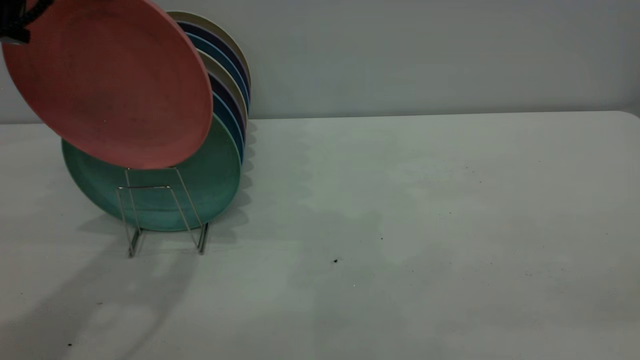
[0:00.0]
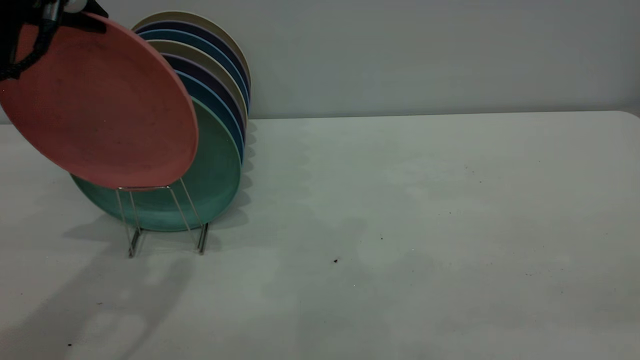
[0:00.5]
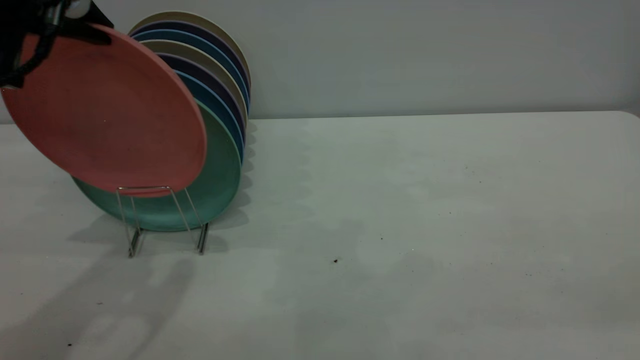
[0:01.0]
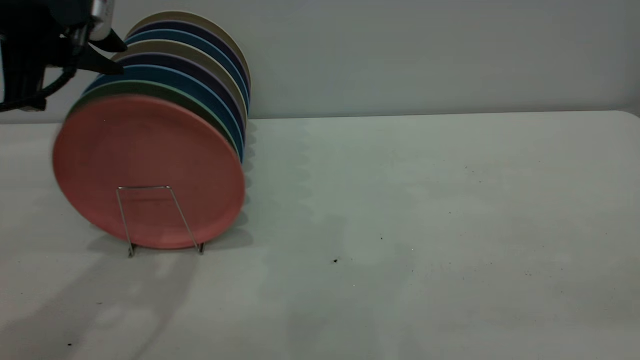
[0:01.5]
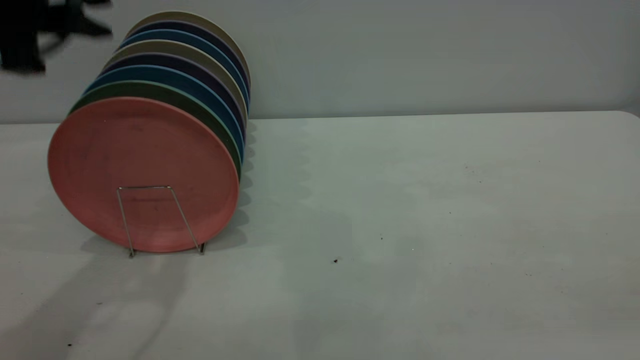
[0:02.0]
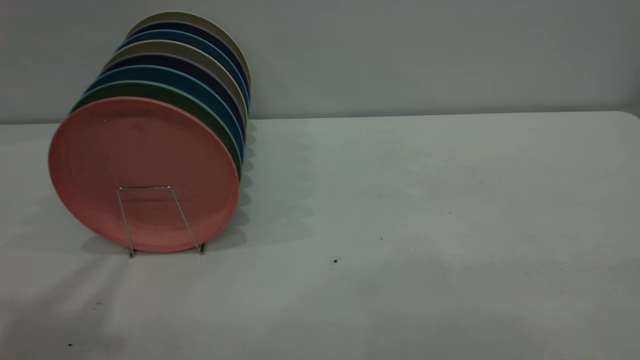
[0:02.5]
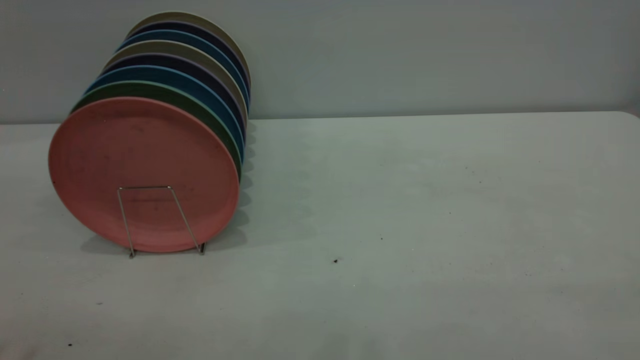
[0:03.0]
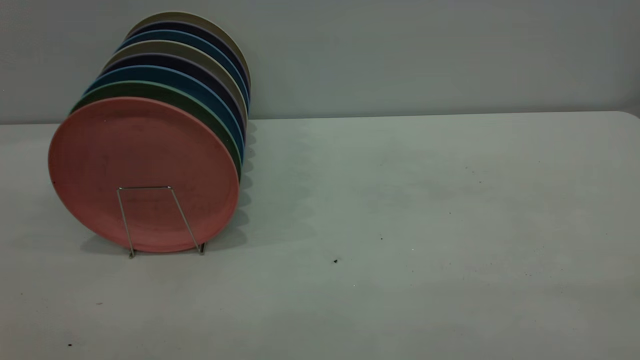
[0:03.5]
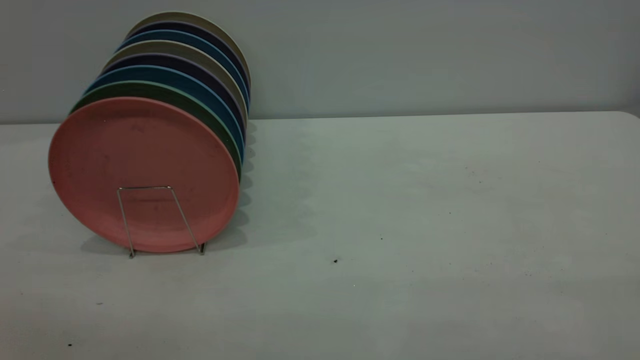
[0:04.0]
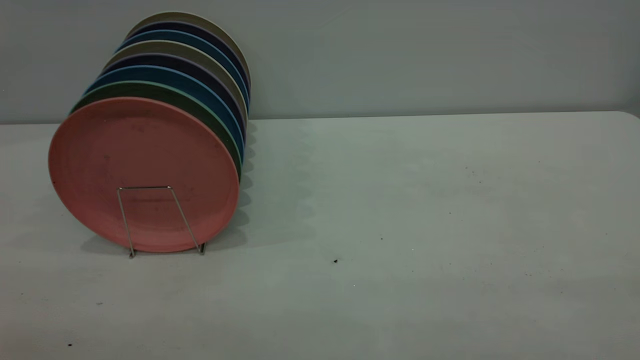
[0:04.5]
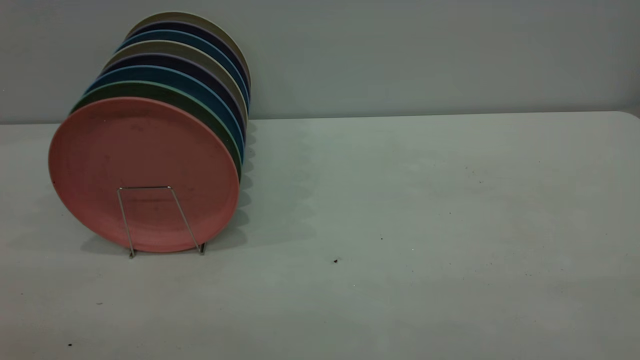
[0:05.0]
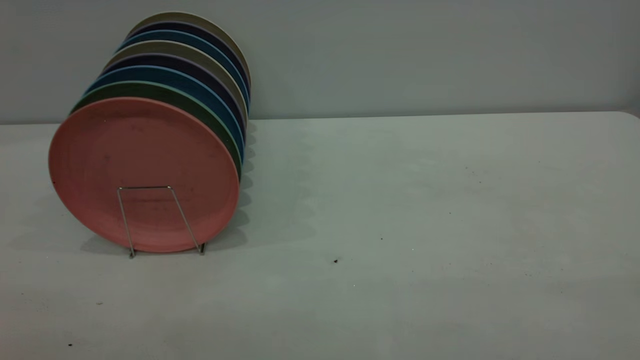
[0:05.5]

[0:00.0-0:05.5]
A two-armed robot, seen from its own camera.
Task of the whole recording: the right gripper grasp the pink plate, the right gripper pass the pink plate to the left gripper, and the left gripper place the pink plate on the plate rack.
Step, 0:00.0 to 0:02.0: Place the plate on the shelf.
0:00.0 to 0:02.0: The left gripper opens.
0:02.0 to 0:03.5: The left gripper travels backward by about 20 cm.

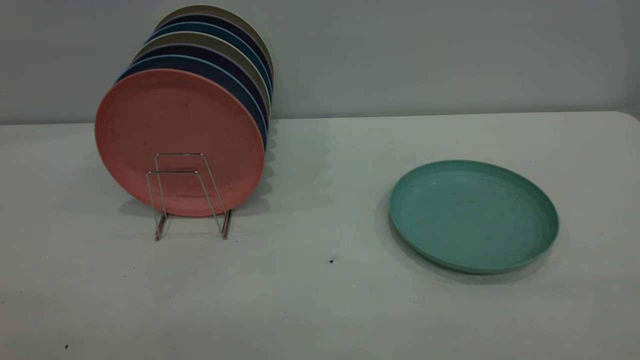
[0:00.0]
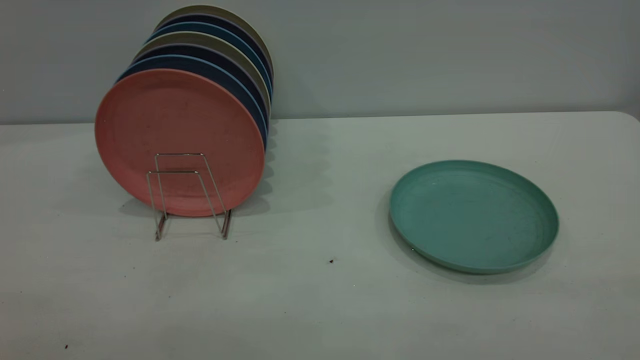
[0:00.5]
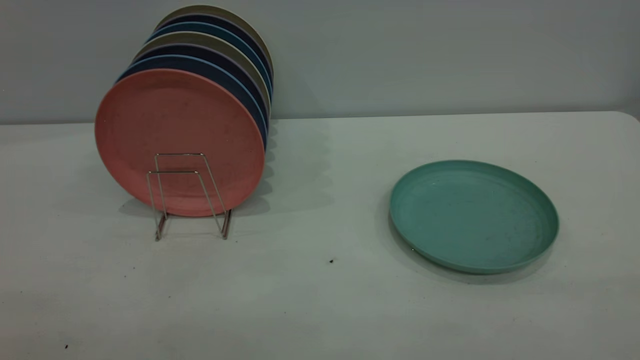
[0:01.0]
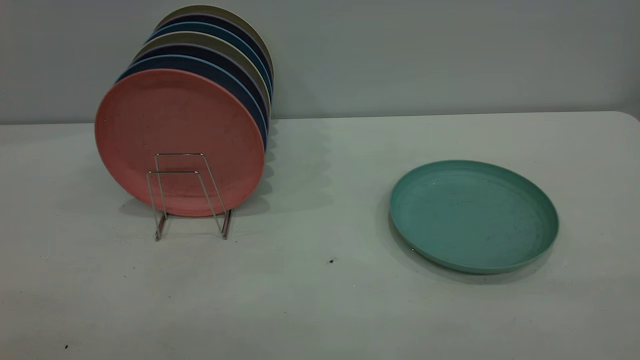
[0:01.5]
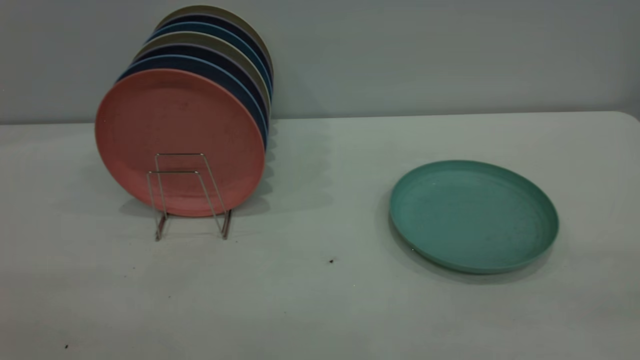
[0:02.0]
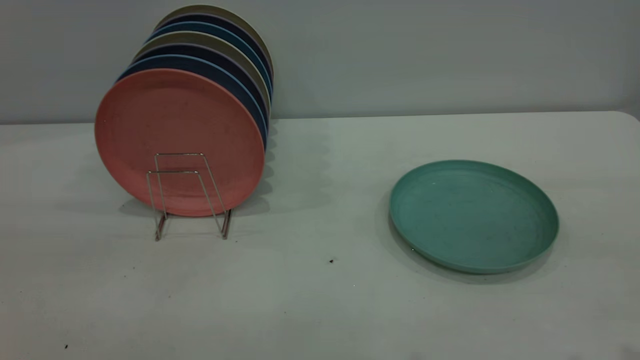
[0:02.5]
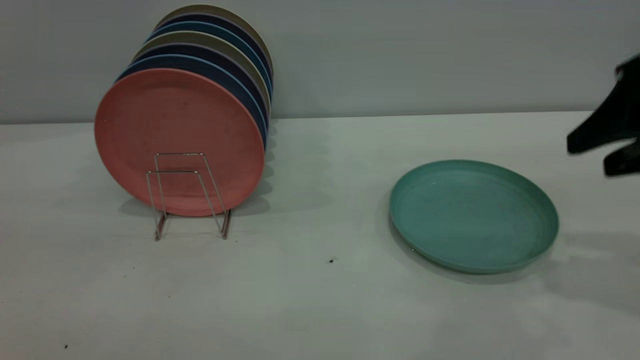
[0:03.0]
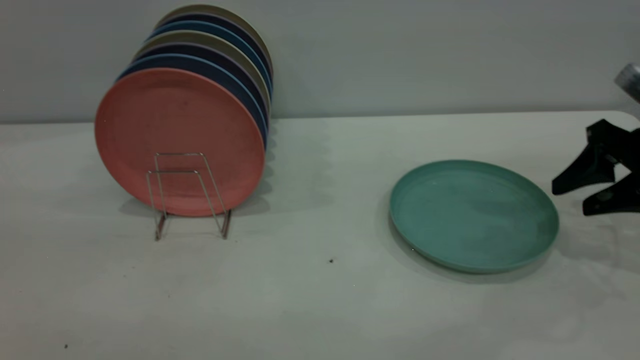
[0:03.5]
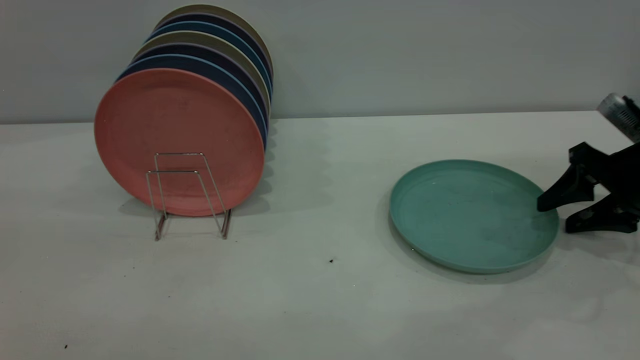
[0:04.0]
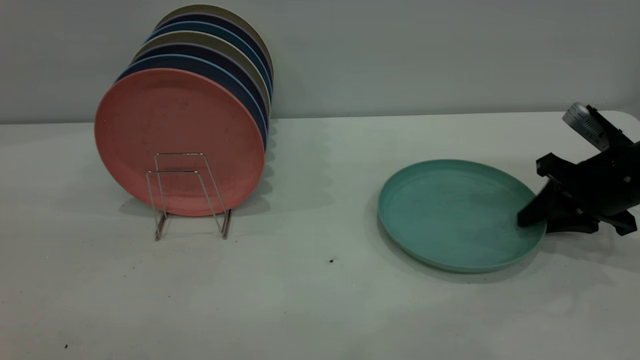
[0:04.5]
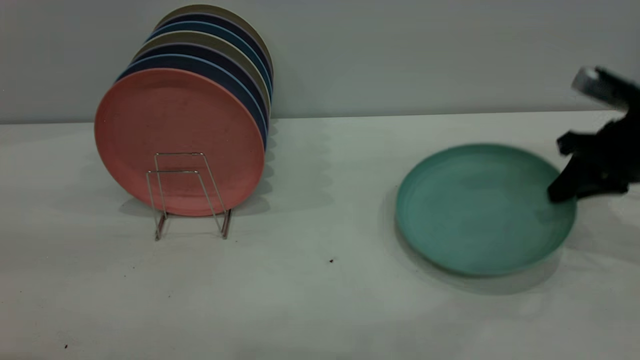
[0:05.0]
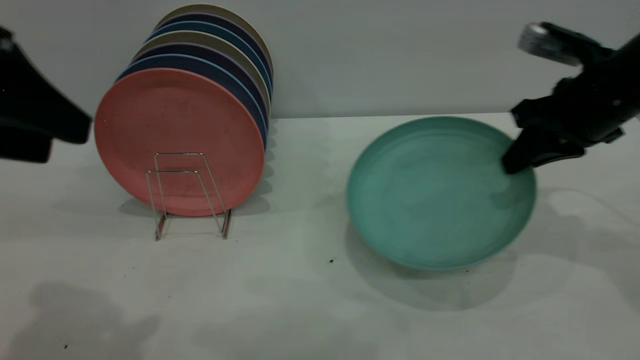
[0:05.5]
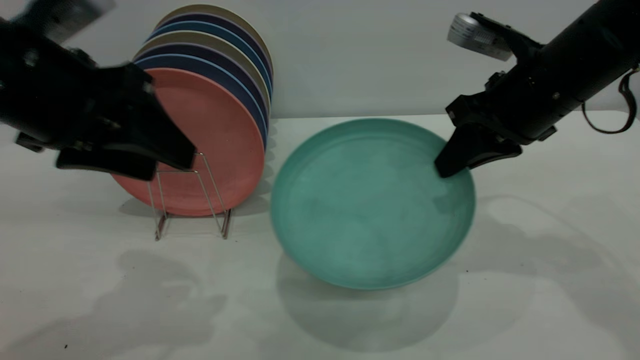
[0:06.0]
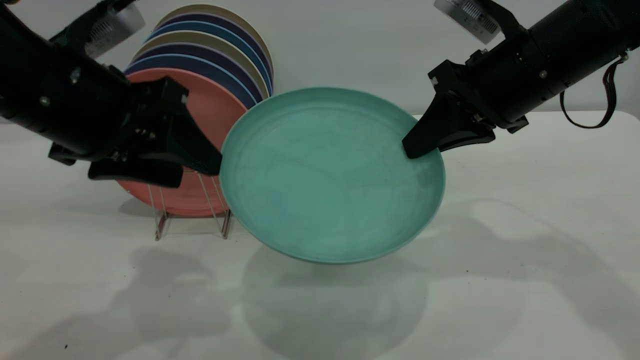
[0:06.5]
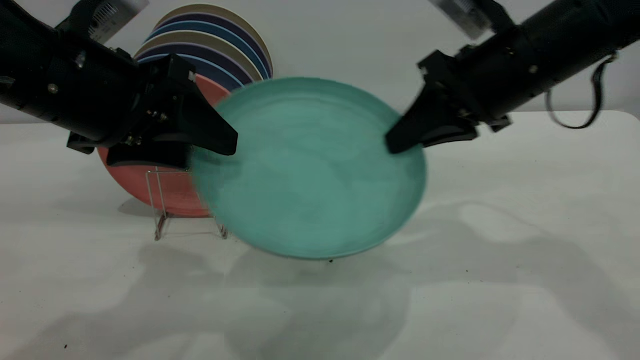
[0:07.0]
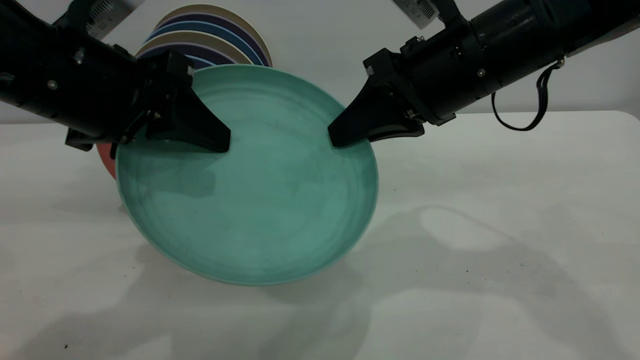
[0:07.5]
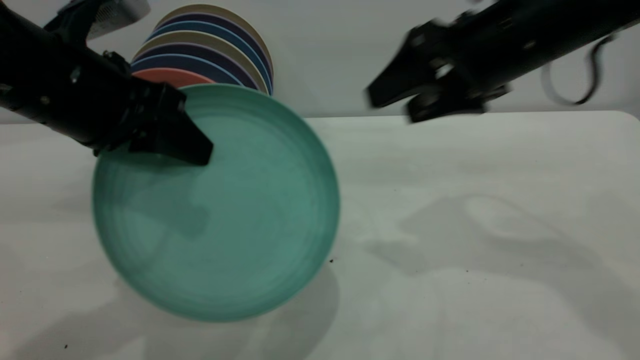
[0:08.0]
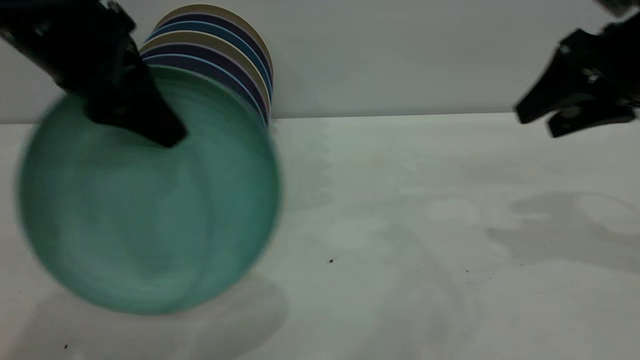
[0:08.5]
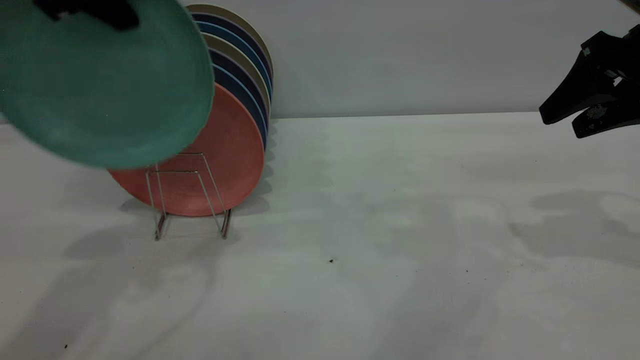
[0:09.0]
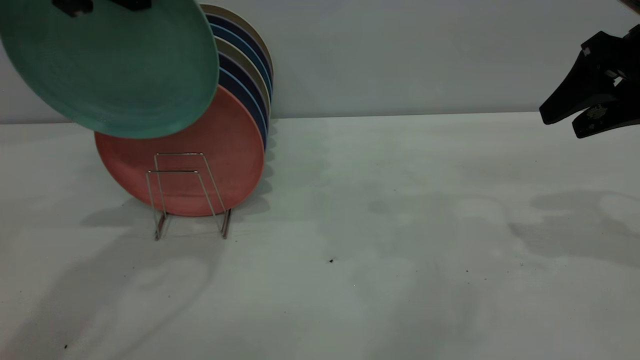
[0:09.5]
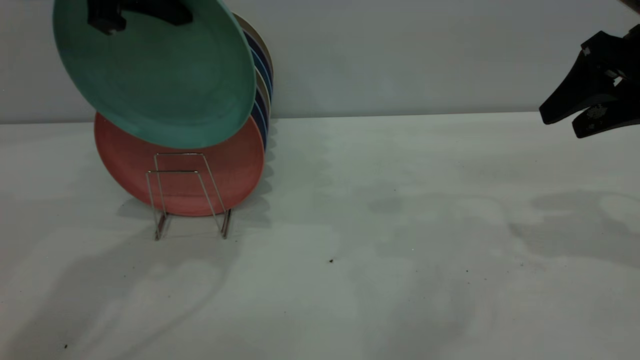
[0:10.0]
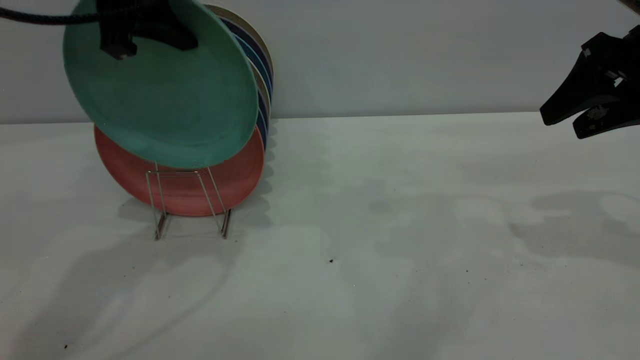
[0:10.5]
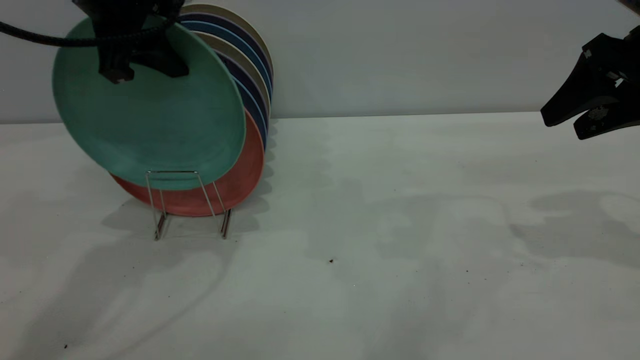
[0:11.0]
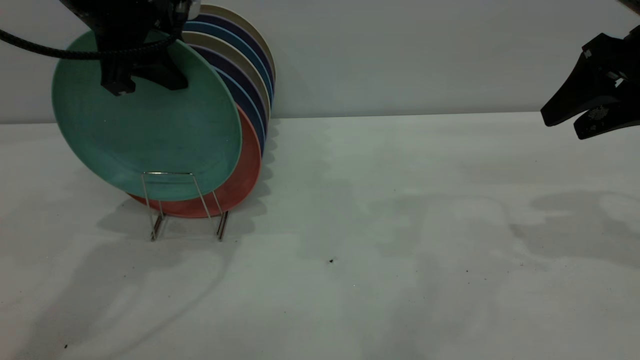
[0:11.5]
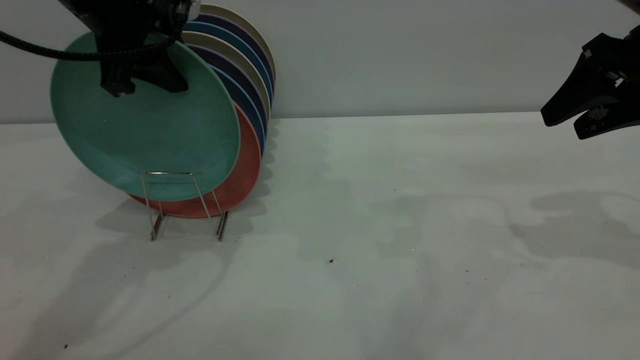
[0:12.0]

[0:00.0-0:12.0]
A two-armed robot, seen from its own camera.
Task of the whole recording: the right gripper grasp the green plate, the right gripper pass the green plate to the left gripper, and the left gripper place the green plate on the plate rack.
Step, 0:00.0 to 0:05.0: Pick up the plate with the right gripper.
Step, 0:05.5 to 0:09.0: Pass the plate from the right gripper to the left gripper.
0:02.0 to 0:04.0: The right gripper heads forward and downward, covering roughly 50 cm.
0:04.0 to 0:06.0: The right gripper moves to the left and upward, about 20 cm, and closes up. The left gripper shifts about 20 cm forward, downward and to the right.
0:06.0 to 0:08.0: The left gripper closes. Meanwhile the right gripper opens up.
0:08.0 to 0:10.0: The right gripper is displaced to the right by roughly 15 cm, while the left gripper moves upward and forward, roughly 15 cm.
0:10.0 to 0:12.0: The left gripper heads downward, covering roughly 5 cm.

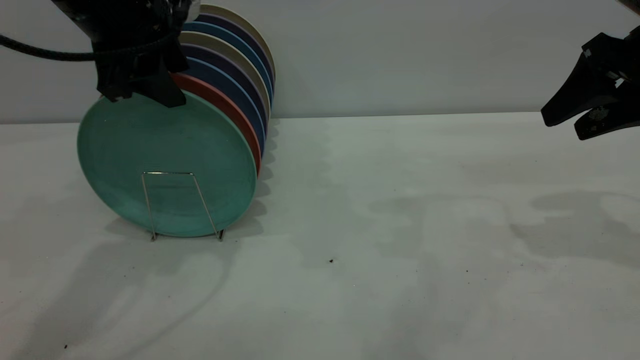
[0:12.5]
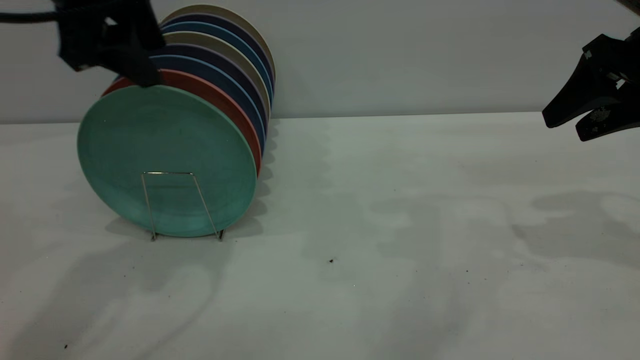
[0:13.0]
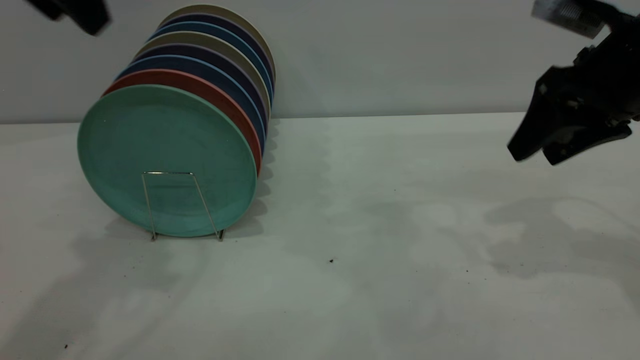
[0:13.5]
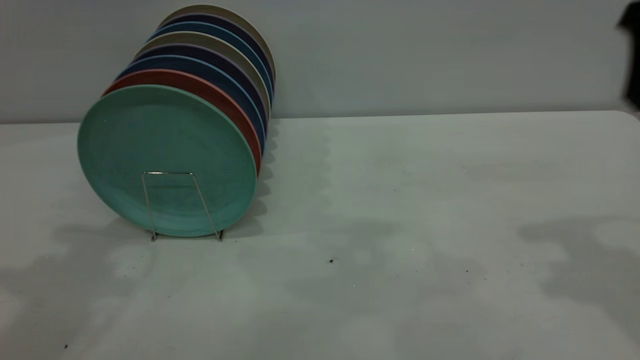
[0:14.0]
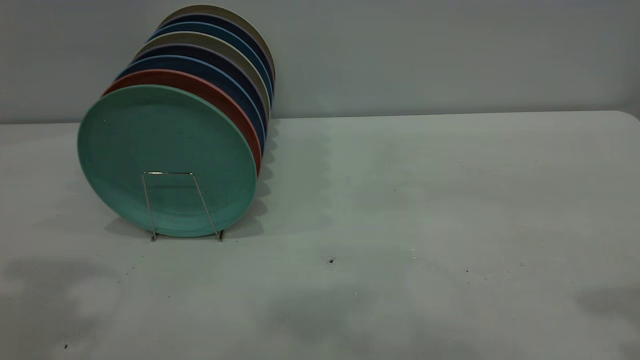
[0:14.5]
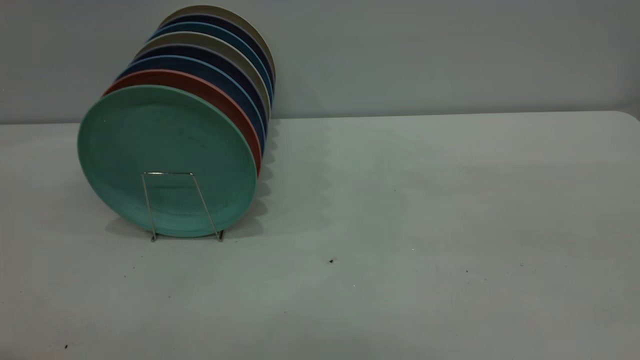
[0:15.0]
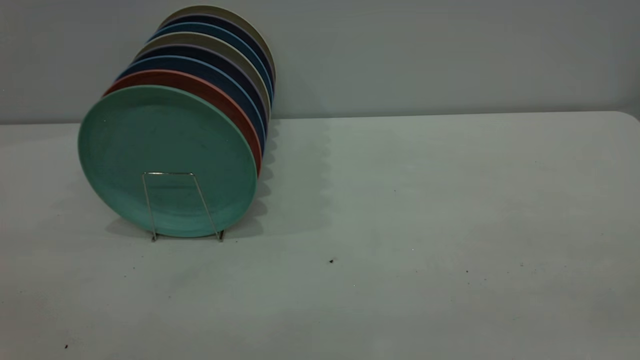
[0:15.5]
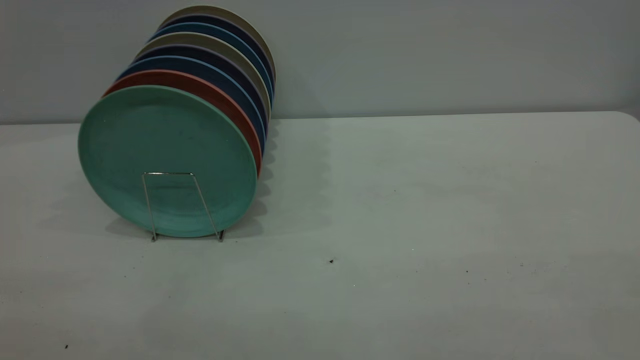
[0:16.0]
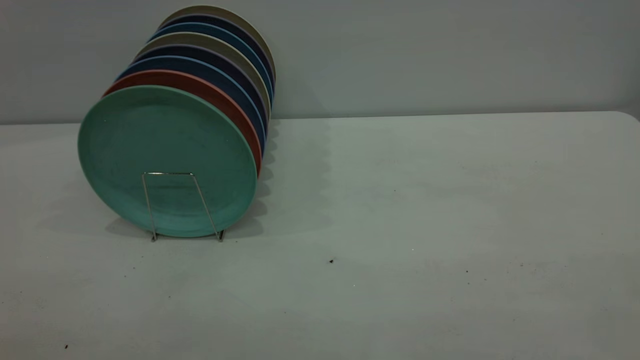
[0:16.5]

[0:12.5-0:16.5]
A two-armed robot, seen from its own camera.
Task of the whole recording: the right gripper grasp the green plate, the right gripper pass the green plate to the left gripper, and the left gripper place the green plate on the plate rack.
0:12.5 to 0:14.5: The right gripper travels upward and backward by some 25 cm, while the left gripper moves upward, backward and to the left, some 20 cm.
